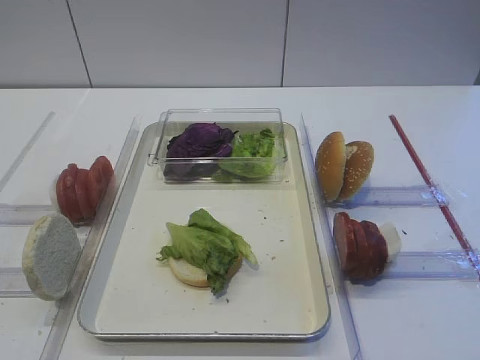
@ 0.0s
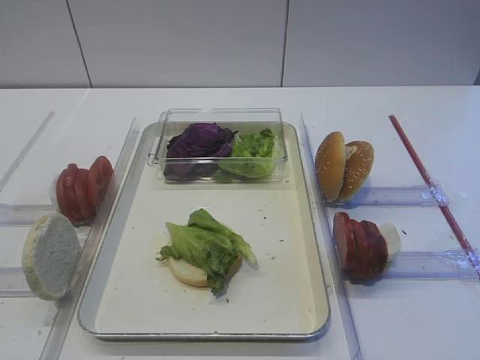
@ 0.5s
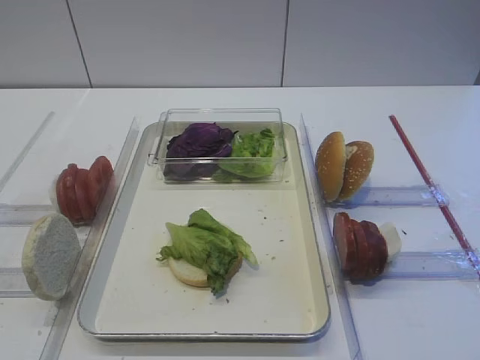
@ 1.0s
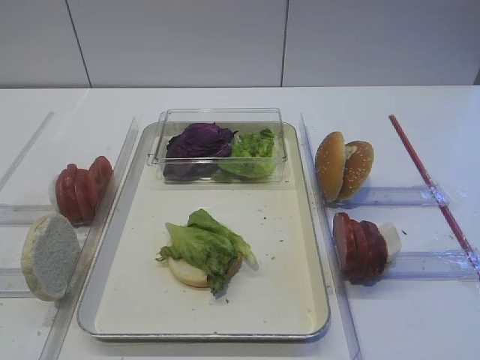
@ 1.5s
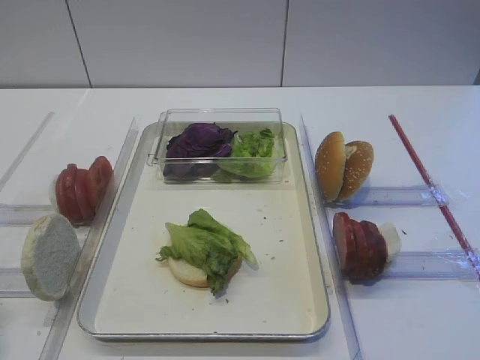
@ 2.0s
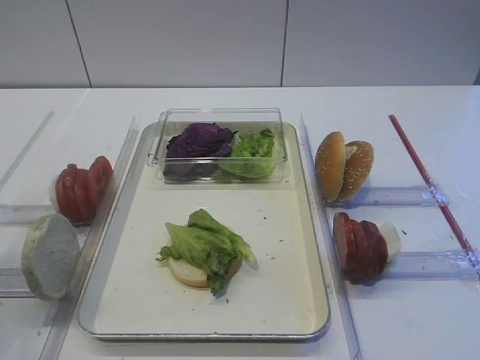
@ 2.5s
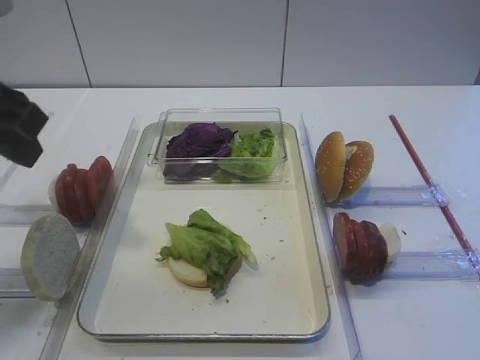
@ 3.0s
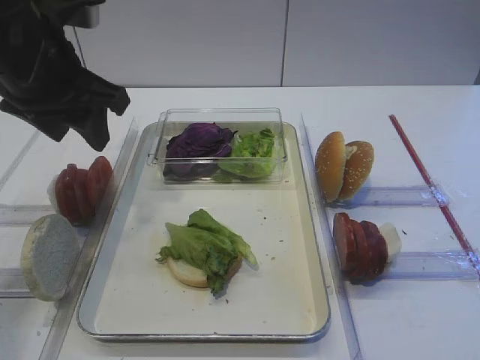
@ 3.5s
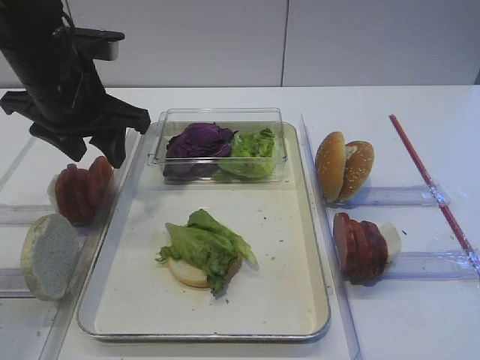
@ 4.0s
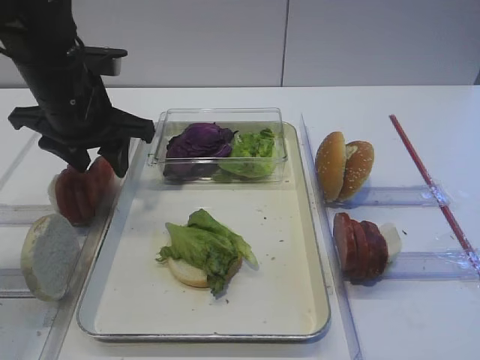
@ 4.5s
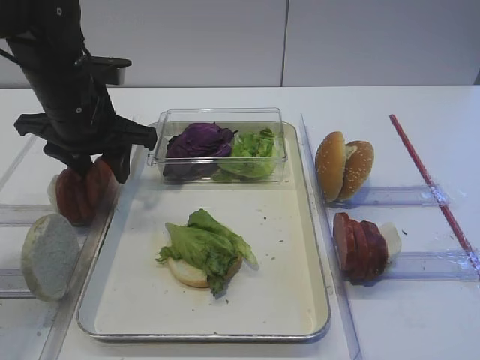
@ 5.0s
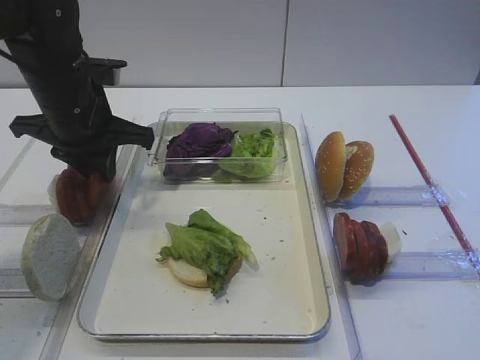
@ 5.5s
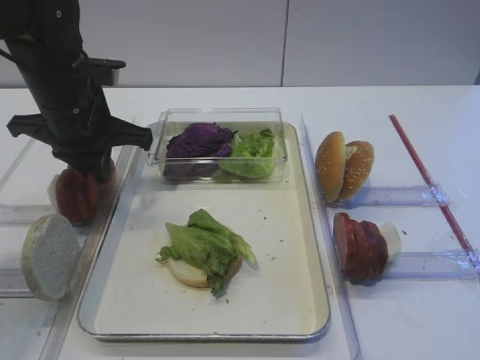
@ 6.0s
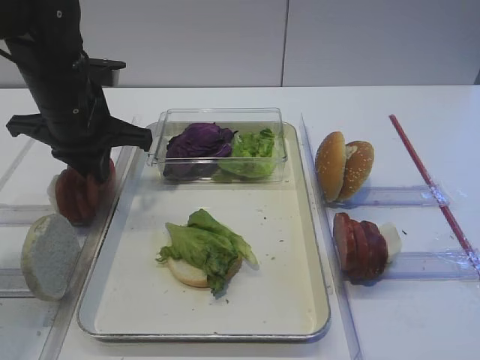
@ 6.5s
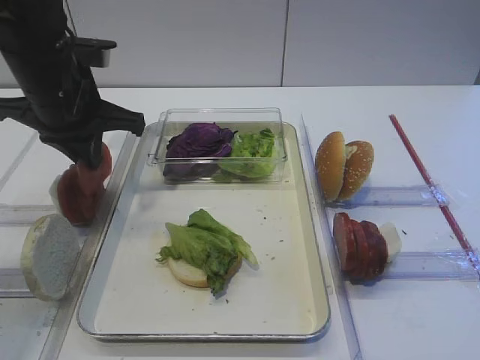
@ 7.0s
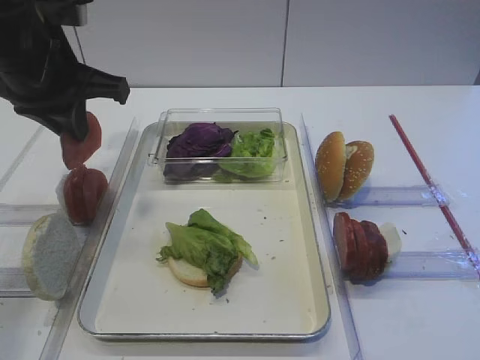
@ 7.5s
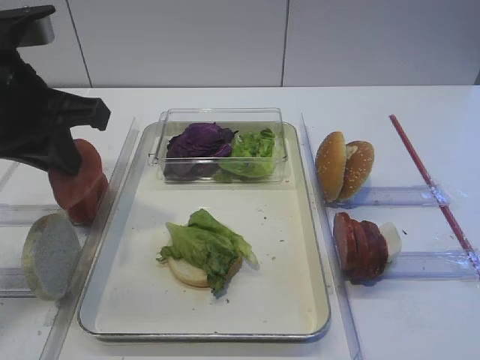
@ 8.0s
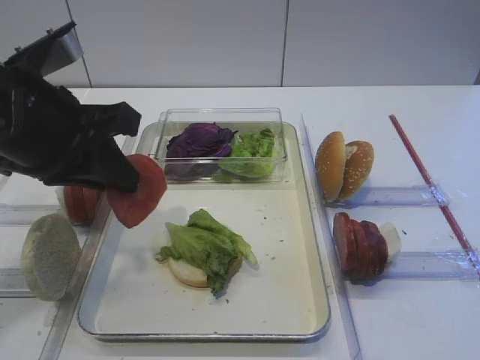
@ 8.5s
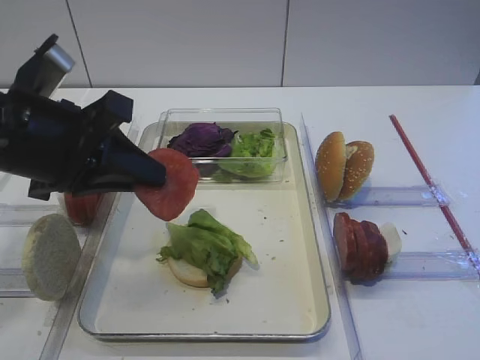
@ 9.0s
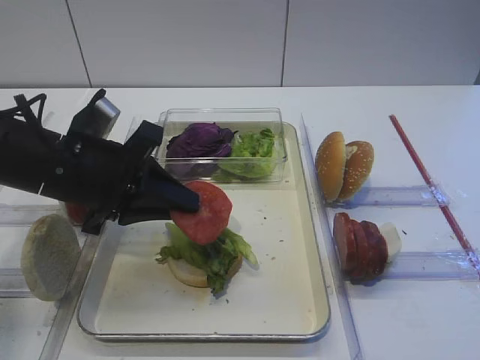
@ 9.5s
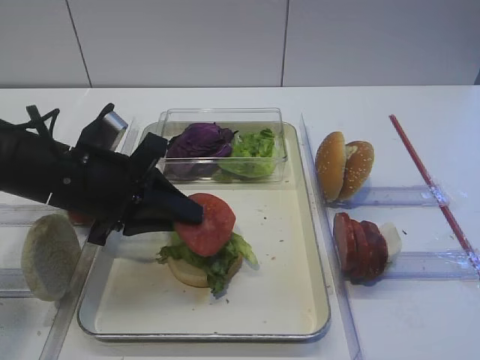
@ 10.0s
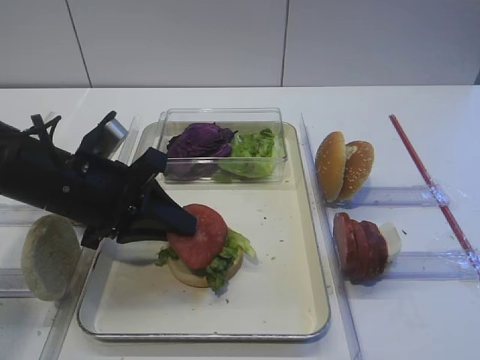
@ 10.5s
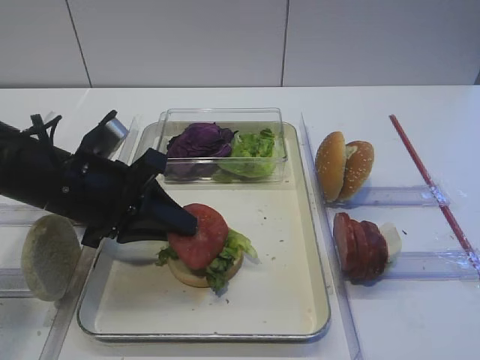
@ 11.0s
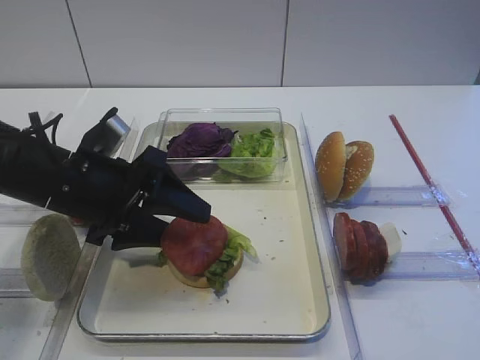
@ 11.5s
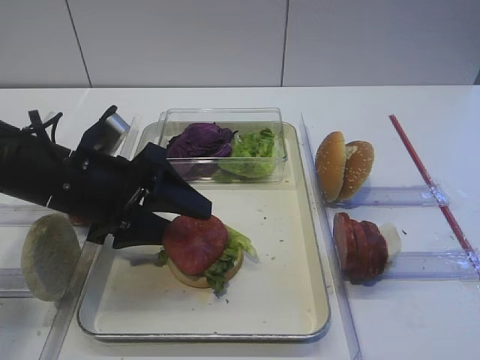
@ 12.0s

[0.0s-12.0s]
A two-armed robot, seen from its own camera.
Step, 0.0s to 7.0s: Pick up the tomato slice with the left gripper.
2.0s to 4.0s: The left gripper travels forward by some 30 cm.
4.0s to 6.0s: The left gripper closes its fingers.
6.0s to 8.0s: The left gripper goes roughly 10 cm backward and upward.
8.0s to 10.0s: The left gripper heads downward, covering about 10 cm.
10.0s to 12.0s: The left gripper opens.

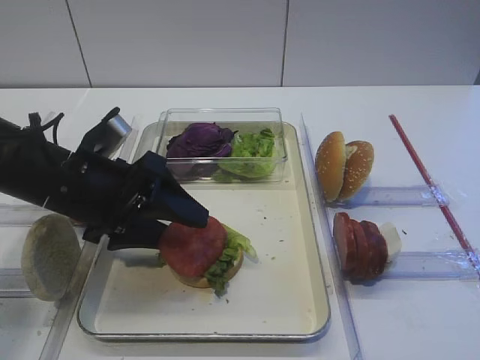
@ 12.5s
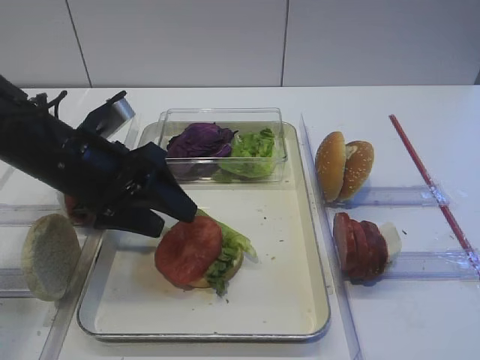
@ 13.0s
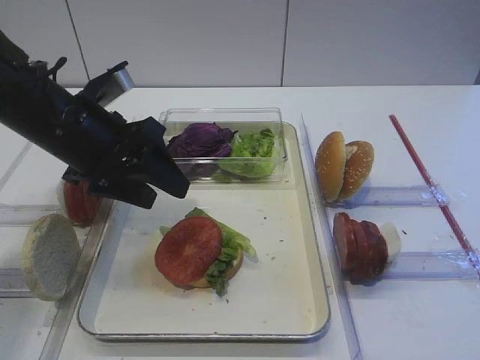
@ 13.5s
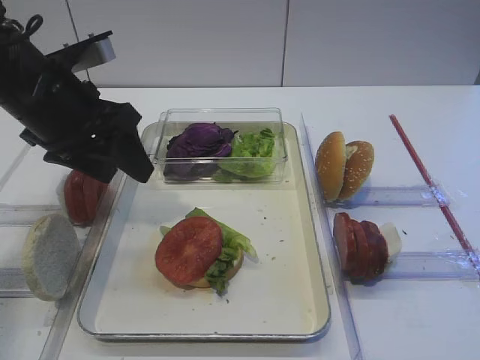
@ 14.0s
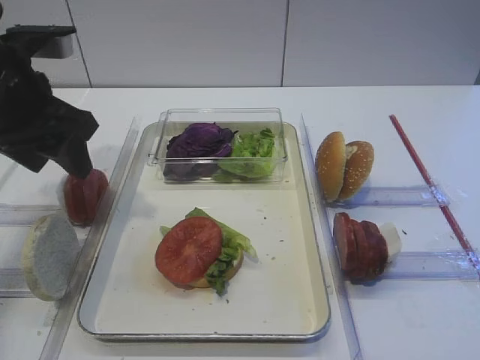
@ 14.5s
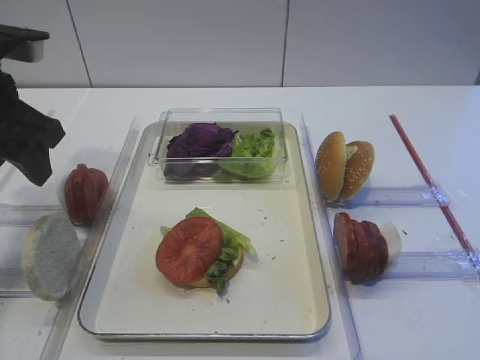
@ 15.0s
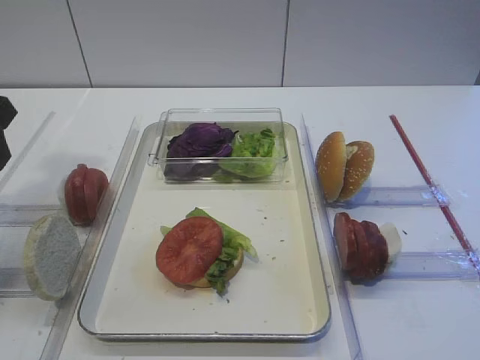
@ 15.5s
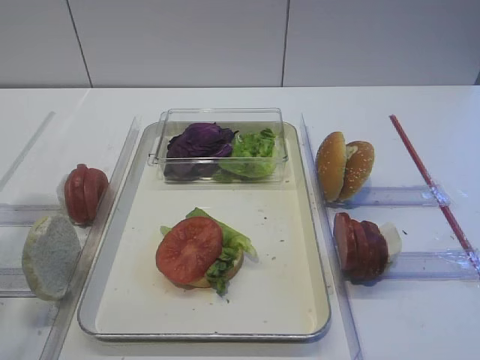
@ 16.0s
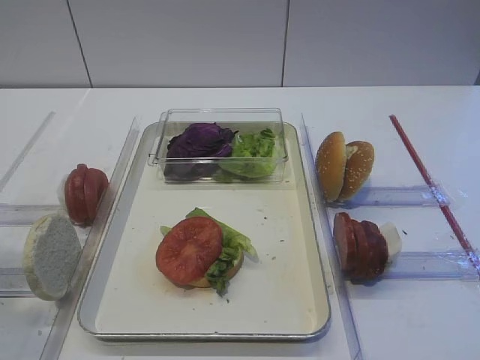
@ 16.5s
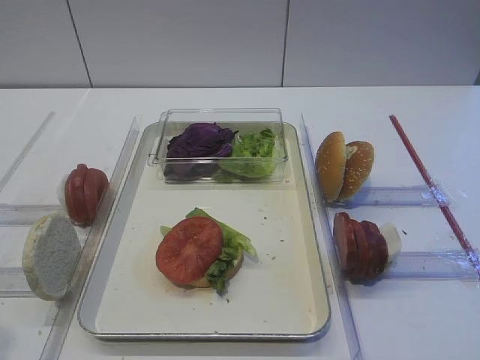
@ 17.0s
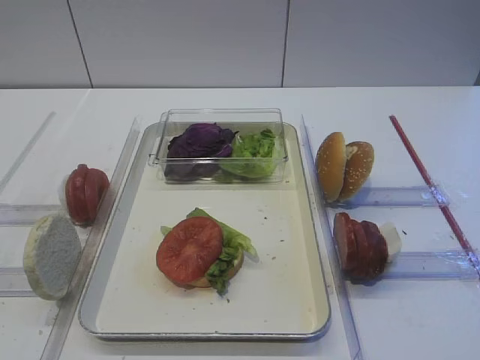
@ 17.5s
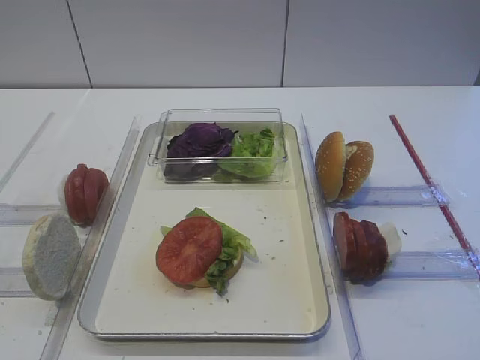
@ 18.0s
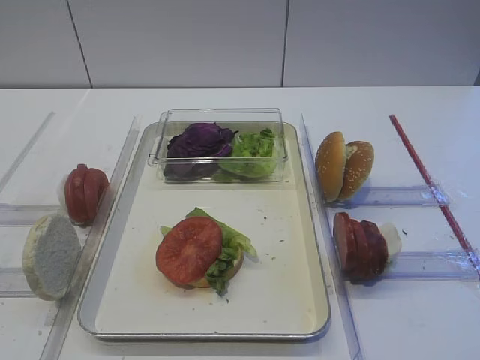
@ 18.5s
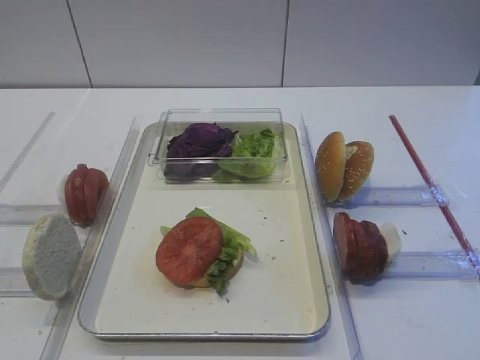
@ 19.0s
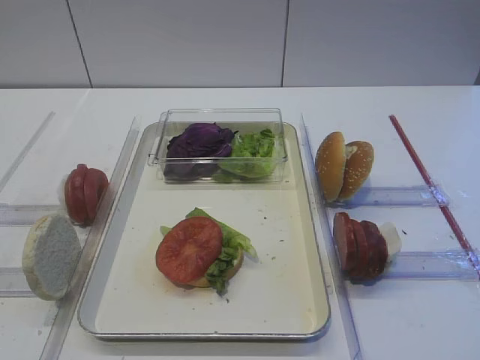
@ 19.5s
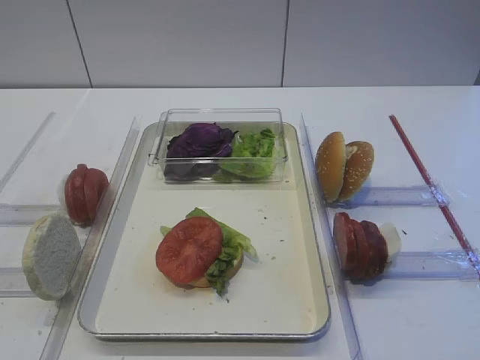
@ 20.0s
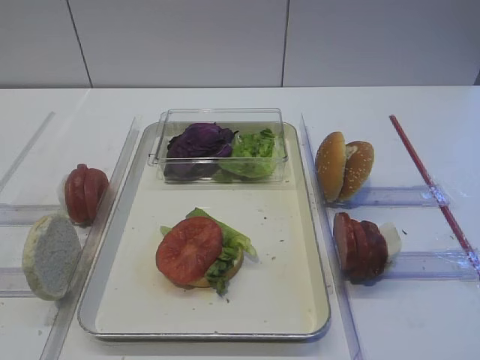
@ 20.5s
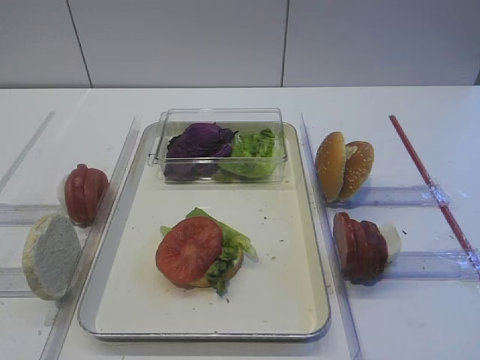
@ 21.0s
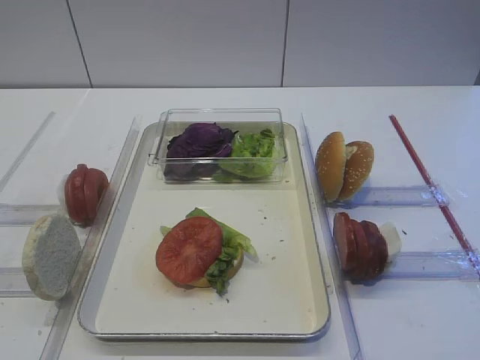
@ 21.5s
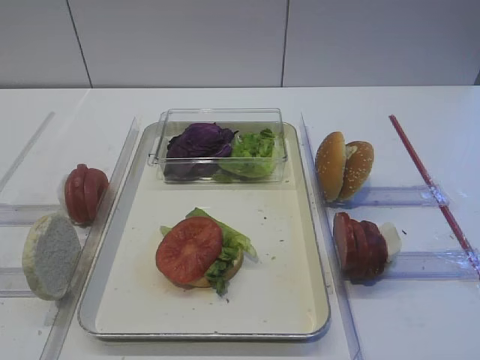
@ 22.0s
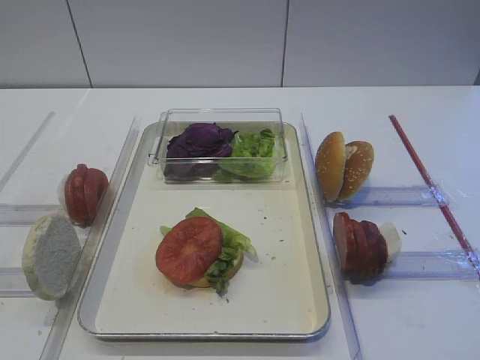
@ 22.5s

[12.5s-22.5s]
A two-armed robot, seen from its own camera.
12.5s to 14.5s: The left gripper travels upward and to the left by about 10 cm.
14.5s to 16.5s: The left gripper moves backward, roughly 20 cm.
16.5s to 18.5s: The left gripper moves backward, approximately 10 cm.
18.5s to 22.5s: The two grippers keep their place.

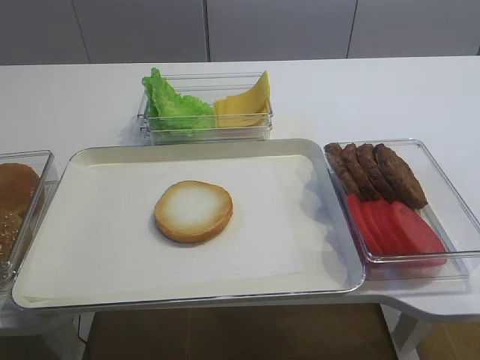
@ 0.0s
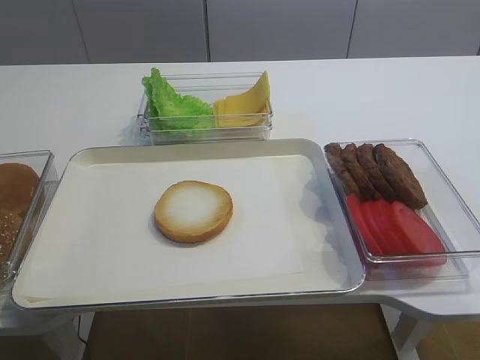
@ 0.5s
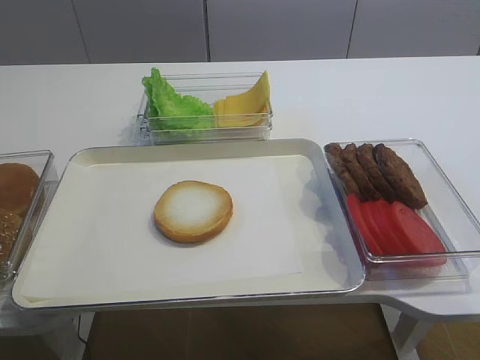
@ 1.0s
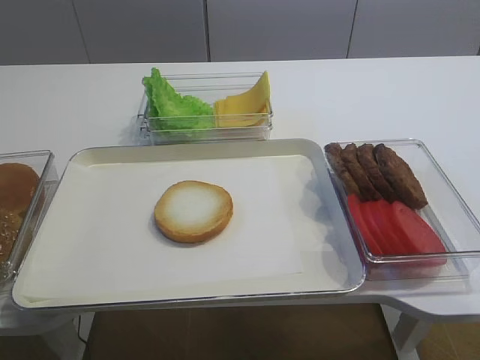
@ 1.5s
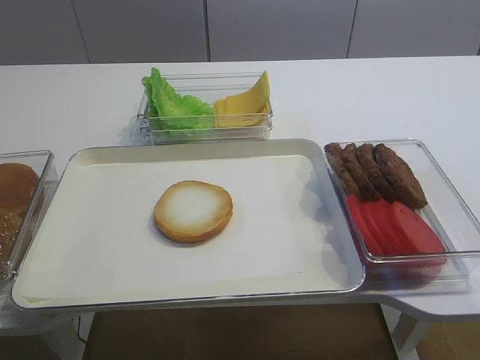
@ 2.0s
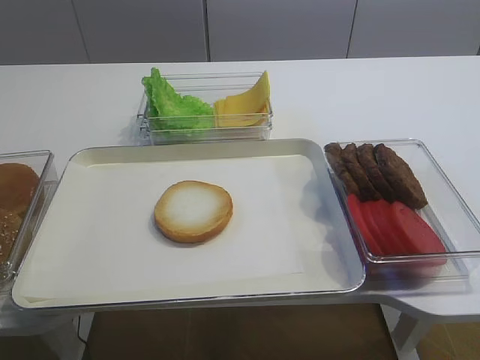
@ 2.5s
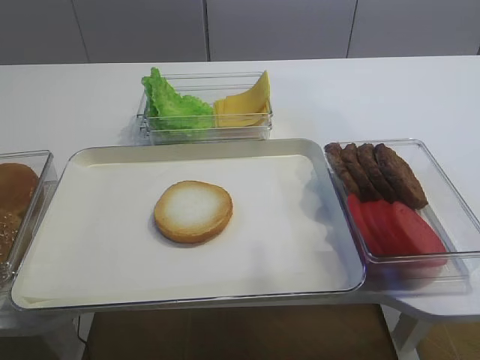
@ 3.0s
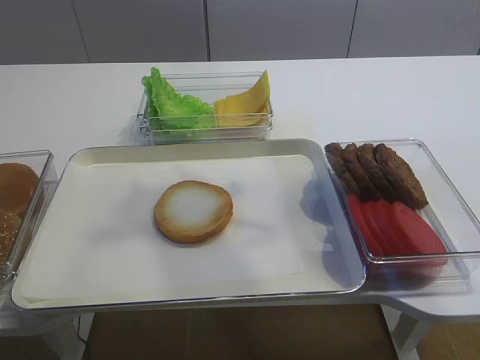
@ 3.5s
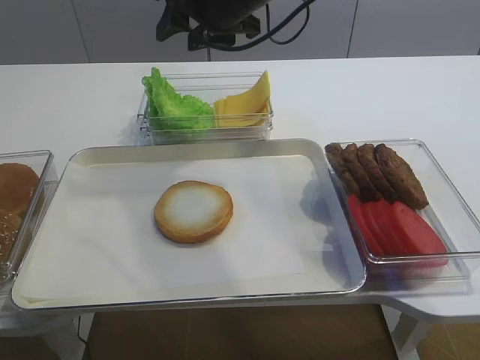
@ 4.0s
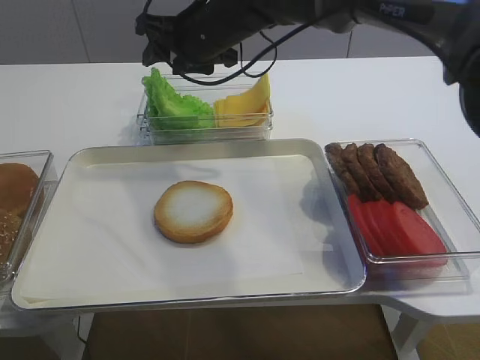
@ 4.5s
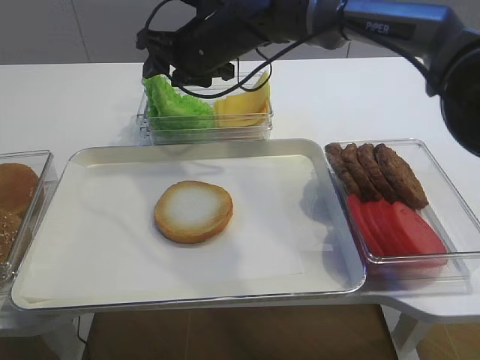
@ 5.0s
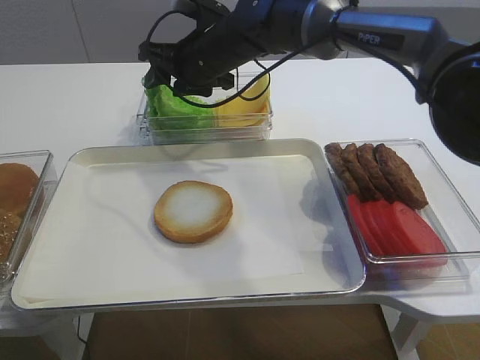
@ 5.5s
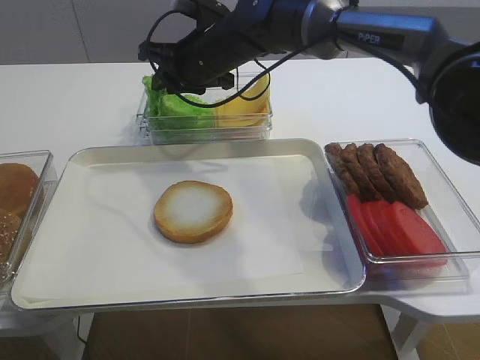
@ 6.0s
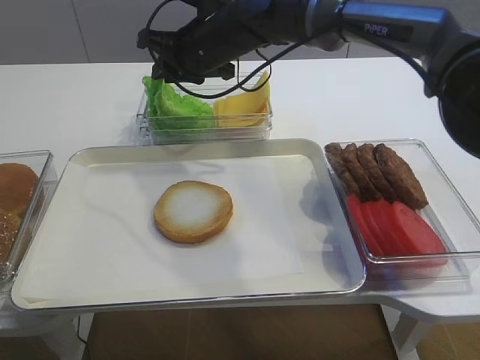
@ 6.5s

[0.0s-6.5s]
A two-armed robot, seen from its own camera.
2.0s to 4.5s: The right gripper goes some 50 cm forward and to the left.
4.5s to 6.5s: The right gripper closes.
